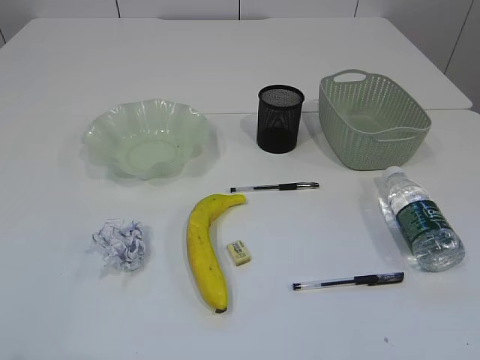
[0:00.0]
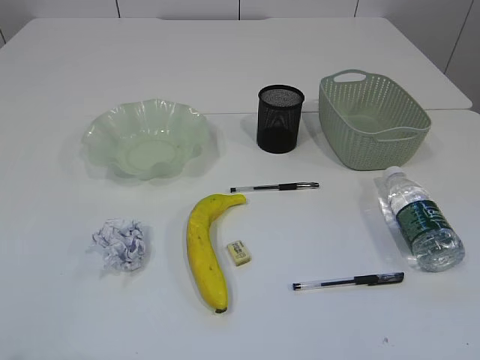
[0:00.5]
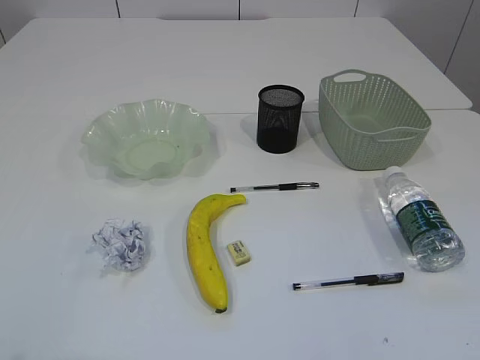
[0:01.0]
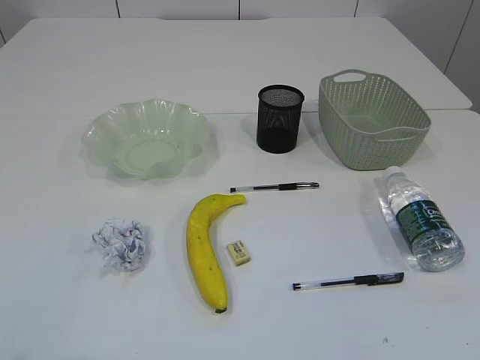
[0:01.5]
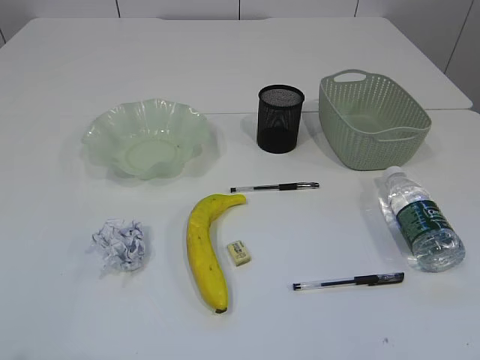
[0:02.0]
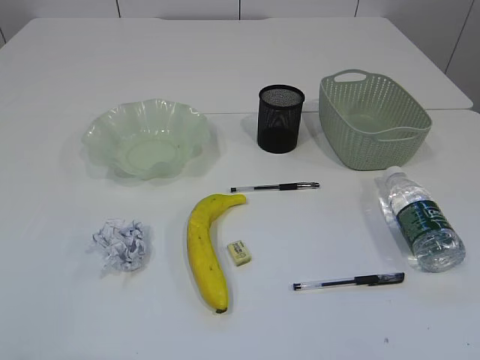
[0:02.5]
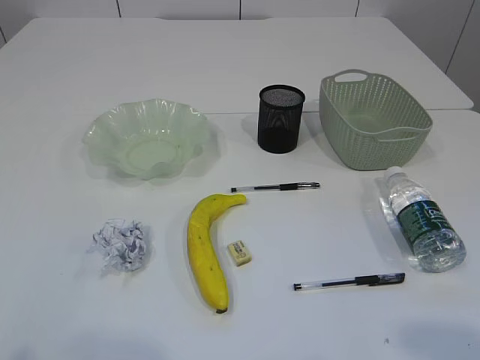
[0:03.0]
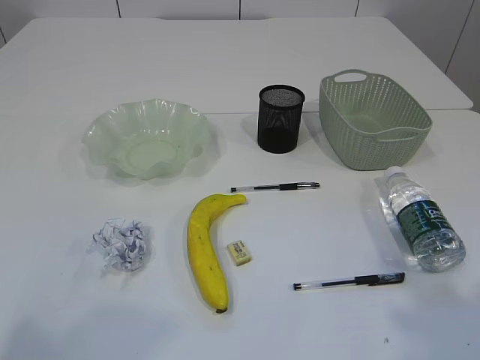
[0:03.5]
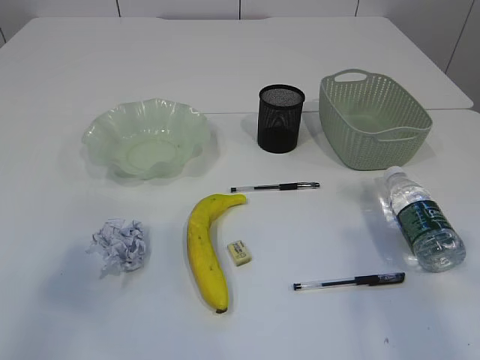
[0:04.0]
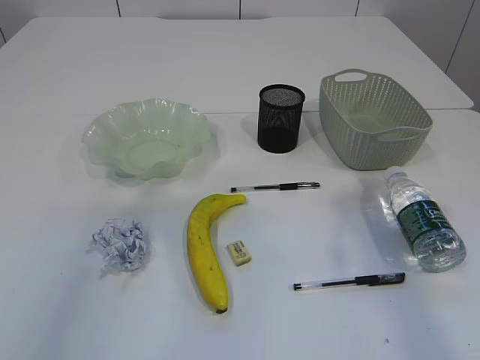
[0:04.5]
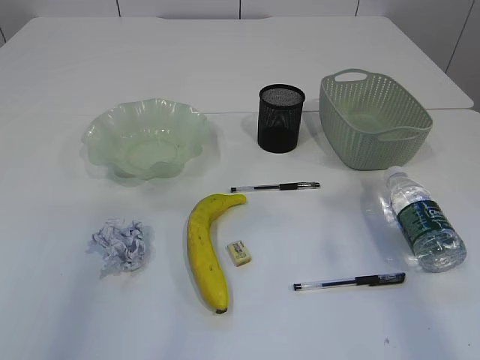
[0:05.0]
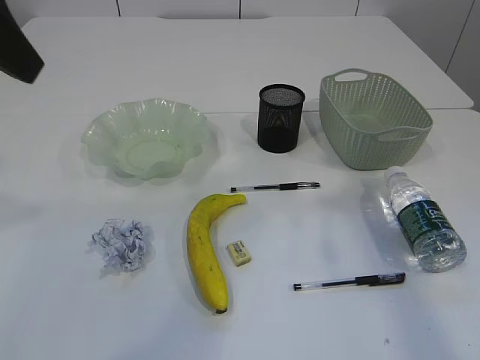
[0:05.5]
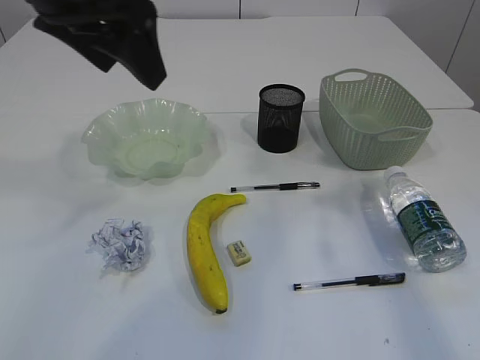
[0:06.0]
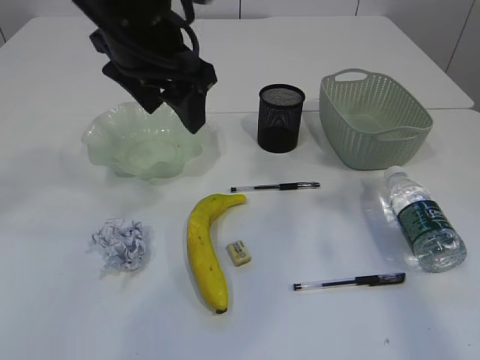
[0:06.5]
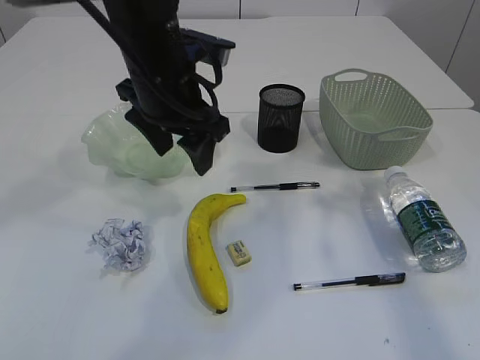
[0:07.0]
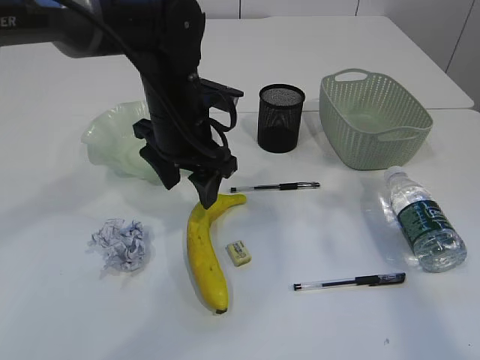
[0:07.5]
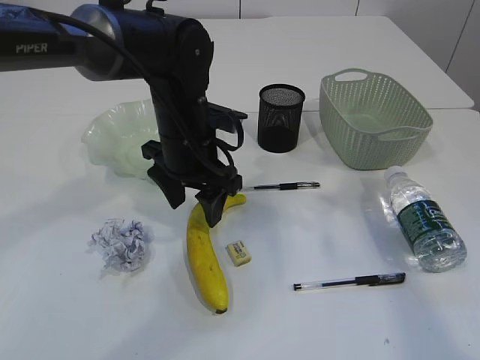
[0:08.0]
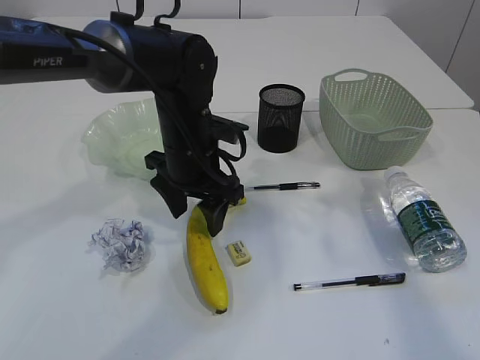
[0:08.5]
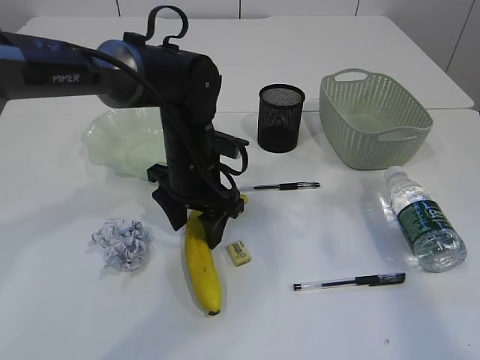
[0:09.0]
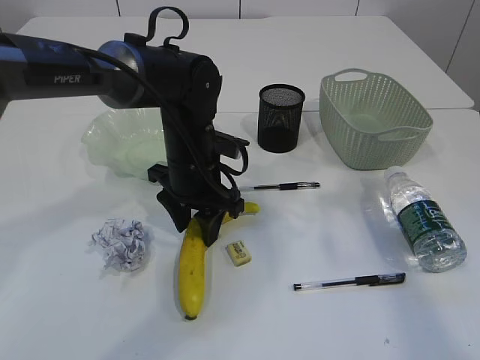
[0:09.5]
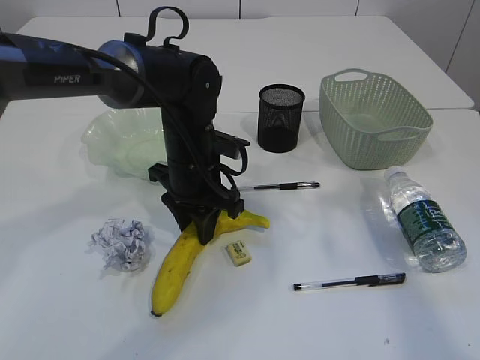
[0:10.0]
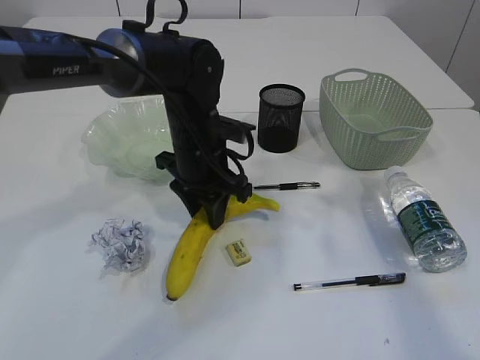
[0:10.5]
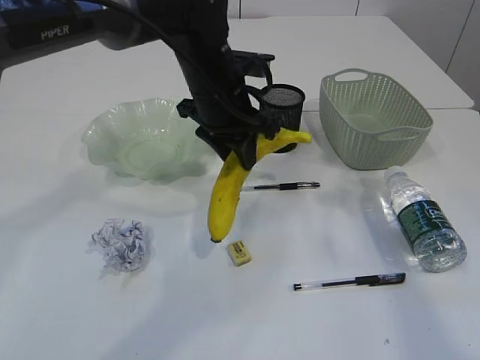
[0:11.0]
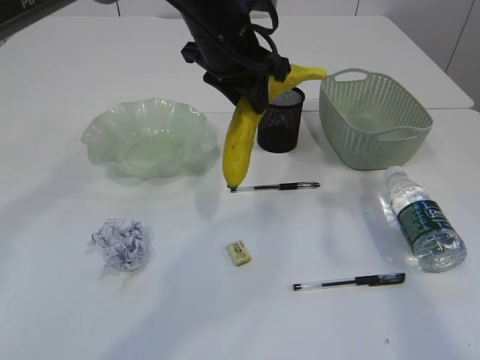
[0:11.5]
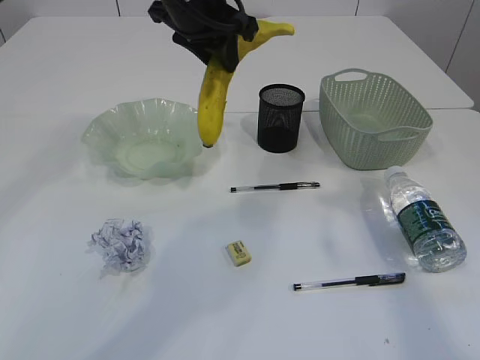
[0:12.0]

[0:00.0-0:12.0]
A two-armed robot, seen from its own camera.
0:02.0 to 0:04.0: The right gripper travels forward and upward by about 25 cm. The left gripper heads upward and forward, covering approximately 15 cm.
0:04.0 to 0:06.0: The left gripper is displaced forward and to the right by approximately 30 cm. The right gripper heads forward, covering some 10 cm.
0:06.0 to 0:08.0: The left gripper heads downward, covering approximately 20 cm.
0:08.0 to 0:10.0: The left gripper closes.
0:10.0 to 0:12.0: The left gripper is displaced upward by some 20 cm.

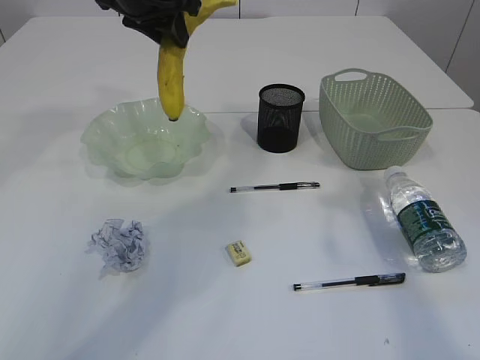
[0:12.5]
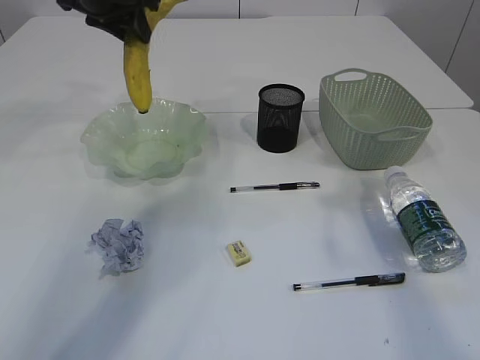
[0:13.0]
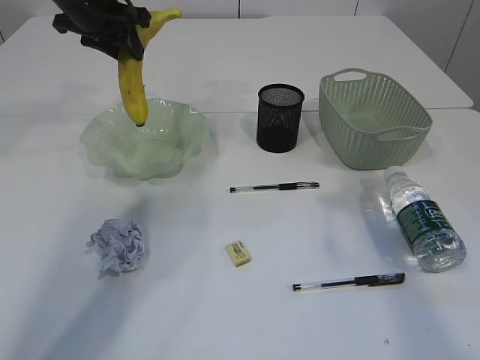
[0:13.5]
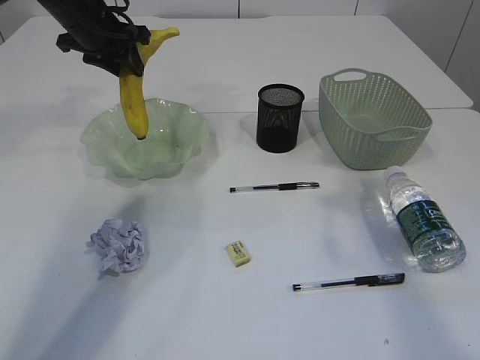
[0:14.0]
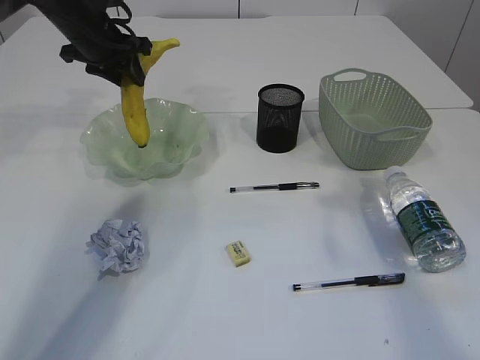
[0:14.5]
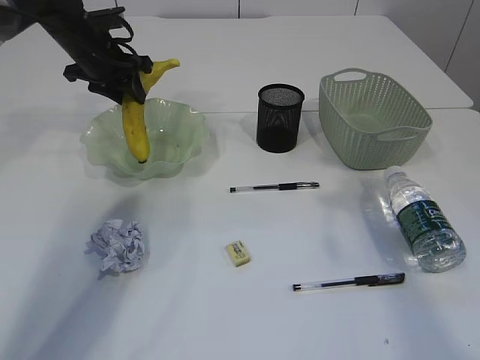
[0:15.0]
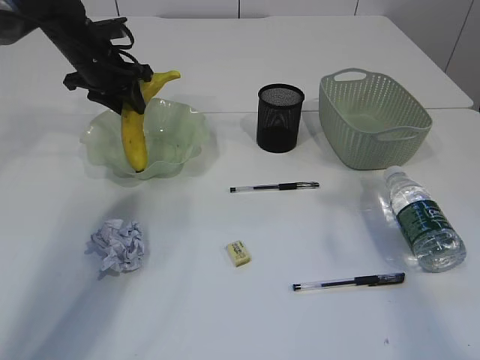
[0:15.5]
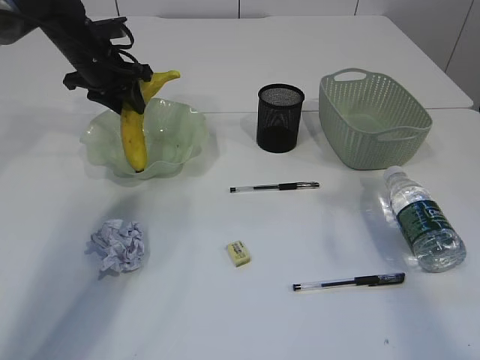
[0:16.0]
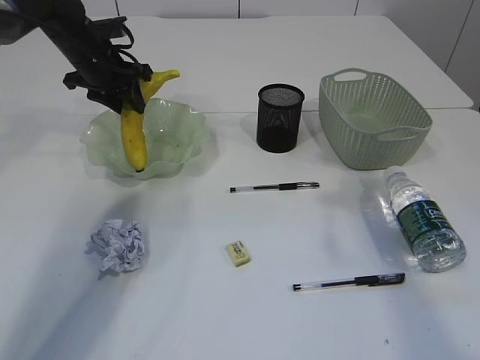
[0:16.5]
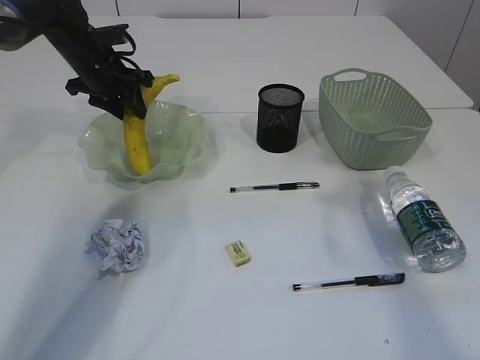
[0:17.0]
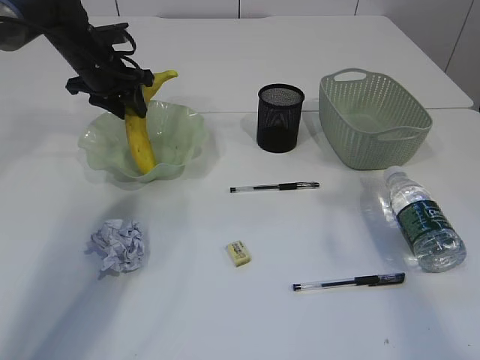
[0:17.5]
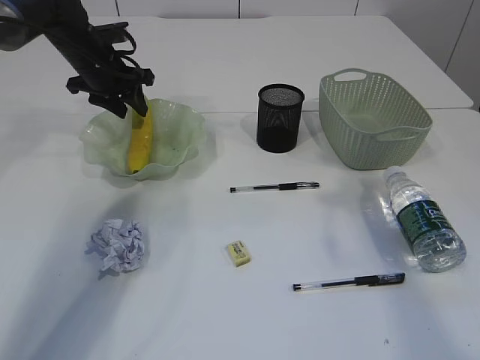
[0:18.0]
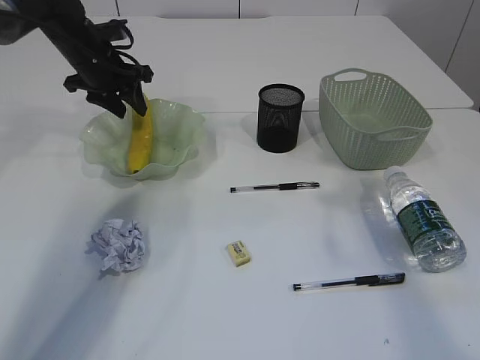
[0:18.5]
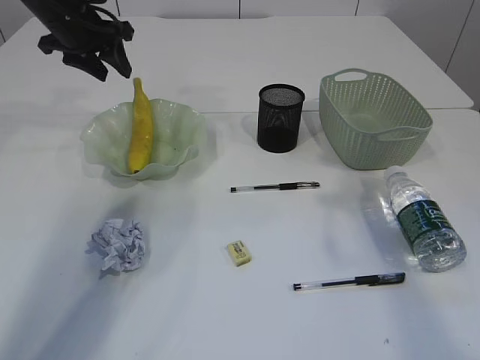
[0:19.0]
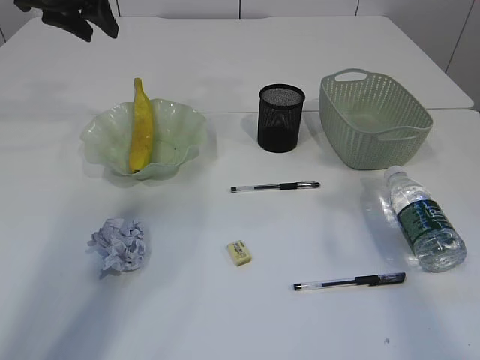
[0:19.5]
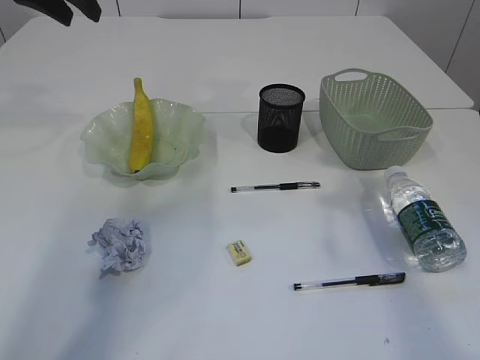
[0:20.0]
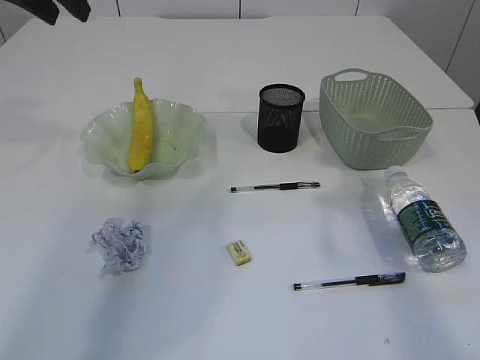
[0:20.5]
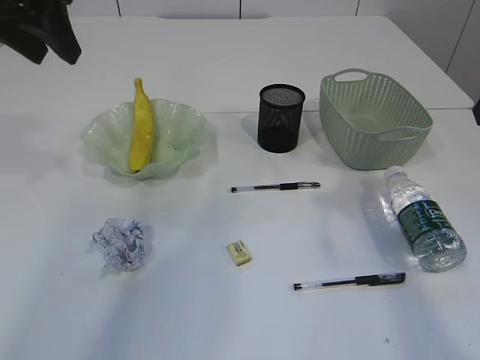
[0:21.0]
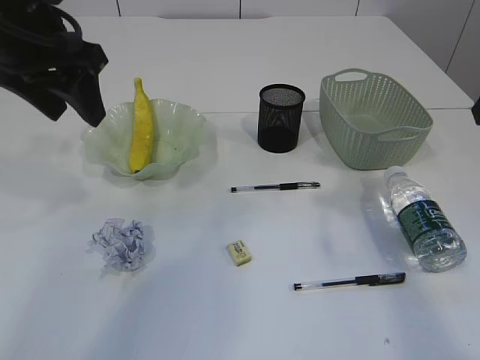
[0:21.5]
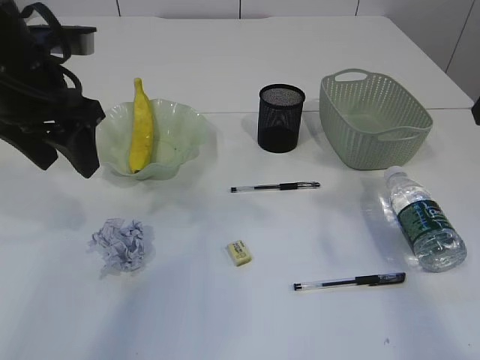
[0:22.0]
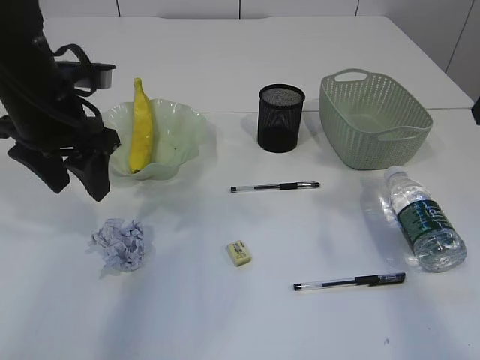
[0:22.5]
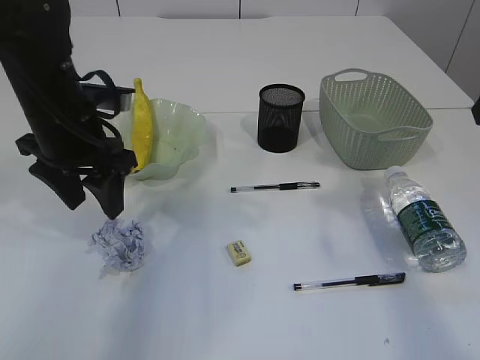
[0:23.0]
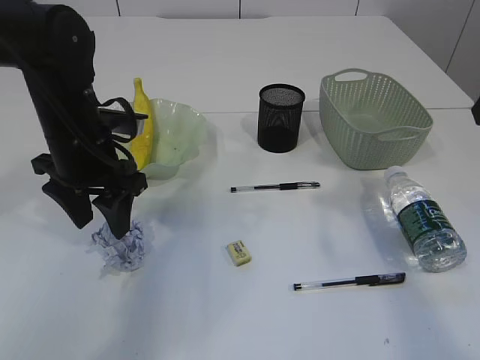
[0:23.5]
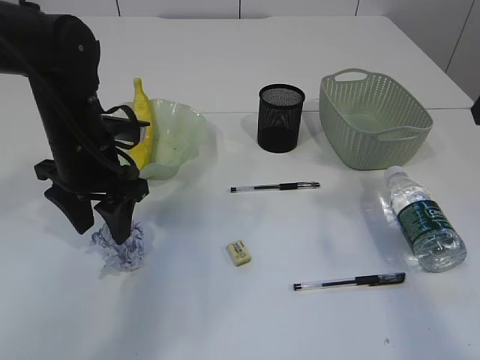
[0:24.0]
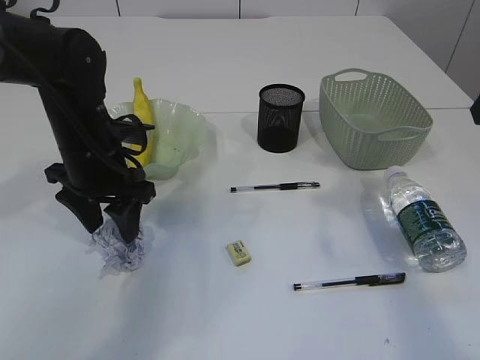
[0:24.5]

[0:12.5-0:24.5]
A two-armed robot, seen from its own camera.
Step, 0:12.5 to 0:19.0: Place the banana in the plate.
0:12.5 to 0:14.5: The left gripper travels to the left, downward and forward by some 15 cm.
0:14.5 to 0:16.5: The grippers make only small movements.
0:16.5 to 0:18.5: Neither gripper changes place.
0:18.5 to 0:20.5: The left gripper travels upward and backward by approximately 20 cm.
0:20.5 to 0:22.5: The left gripper moves downward and backward, roughly 15 cm.
0:22.5 to 0:24.5: The left gripper is displaced downward by roughly 10 cm.

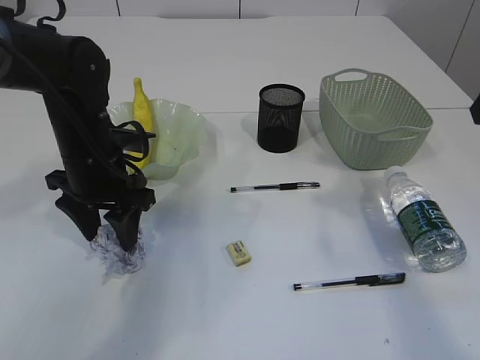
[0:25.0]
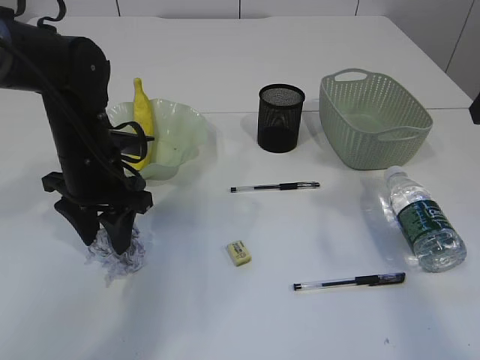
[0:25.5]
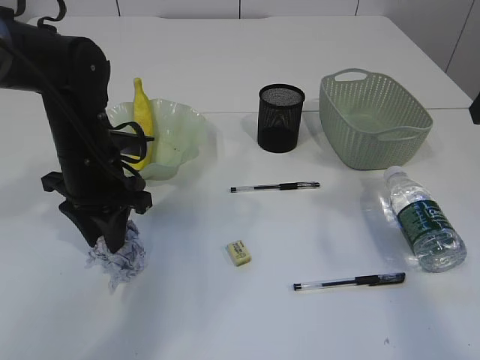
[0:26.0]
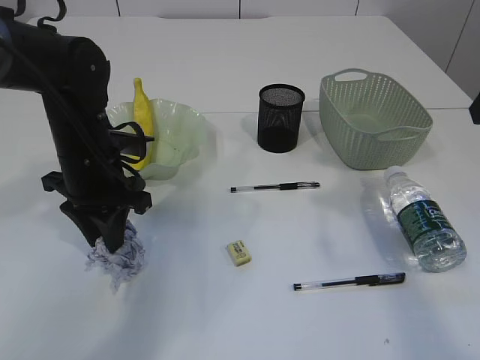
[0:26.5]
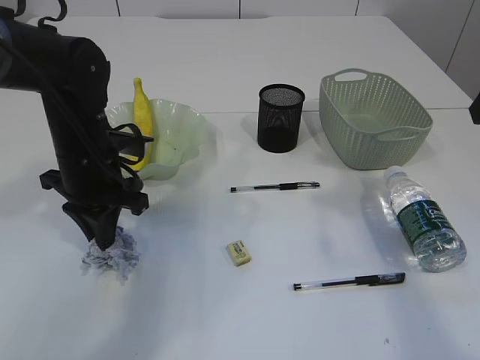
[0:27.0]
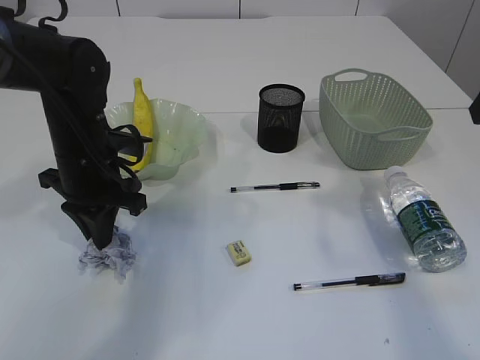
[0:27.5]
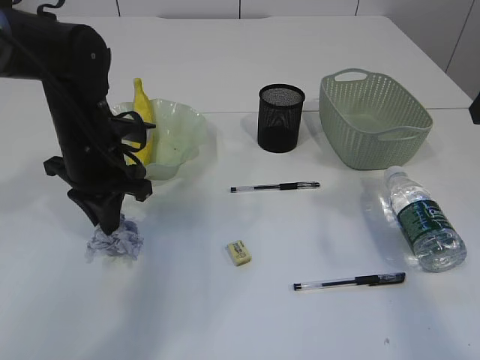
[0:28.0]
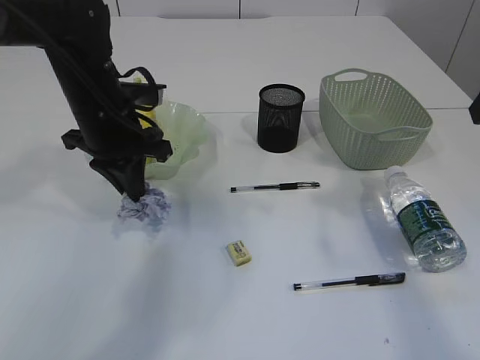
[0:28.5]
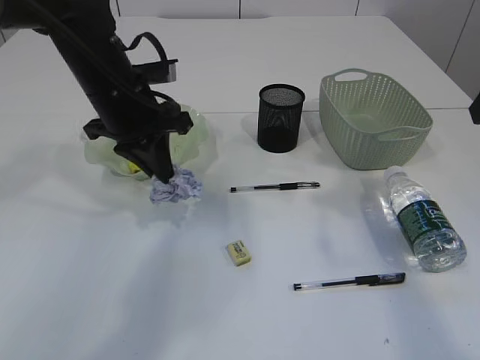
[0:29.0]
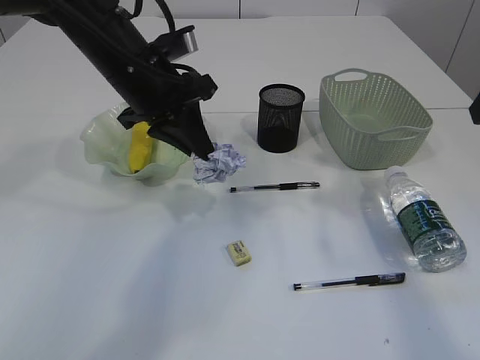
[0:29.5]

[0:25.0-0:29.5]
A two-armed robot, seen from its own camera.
Step, 0:25.0 to 0:28.5: Pick up the waste paper.
0:25.0 to 0:27.0: The left gripper closes up.
0:27.0 to 0:29.5: The left gripper travels upward and to the right by about 10 cm.
